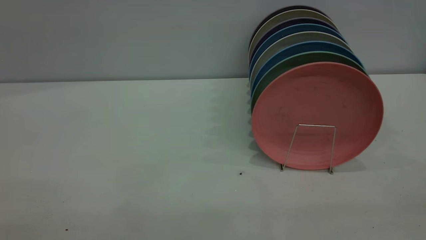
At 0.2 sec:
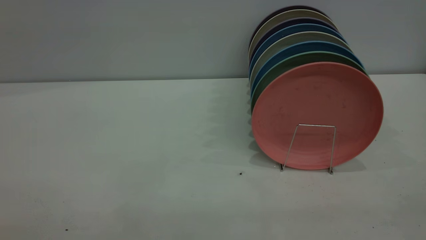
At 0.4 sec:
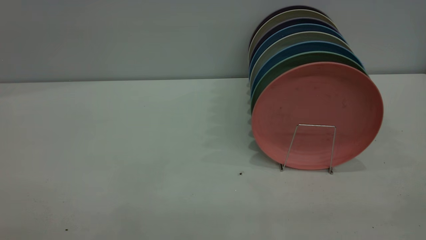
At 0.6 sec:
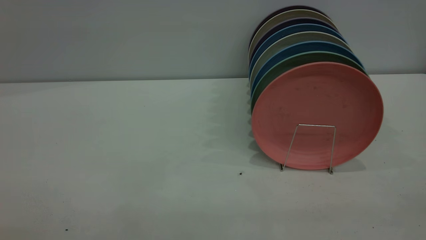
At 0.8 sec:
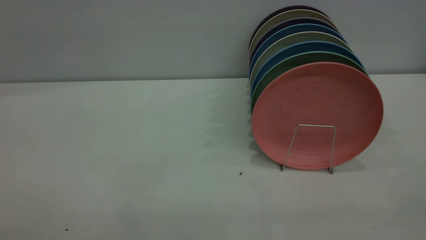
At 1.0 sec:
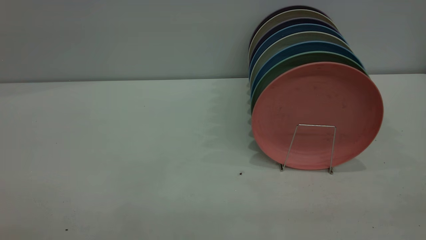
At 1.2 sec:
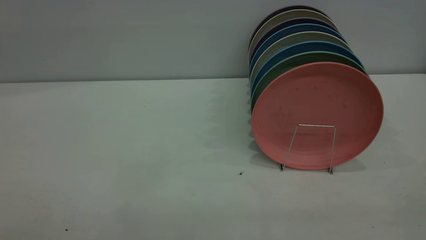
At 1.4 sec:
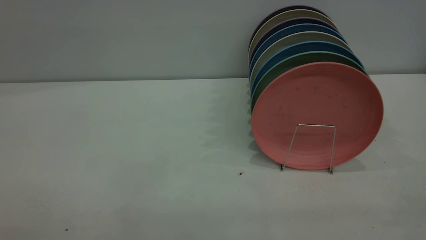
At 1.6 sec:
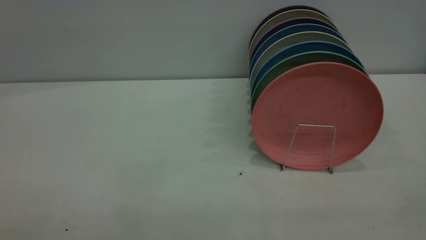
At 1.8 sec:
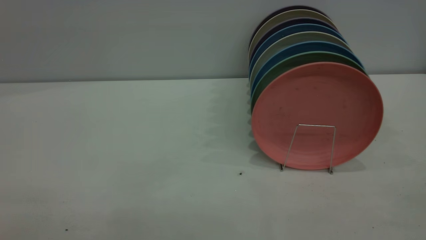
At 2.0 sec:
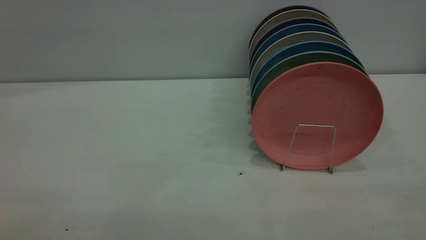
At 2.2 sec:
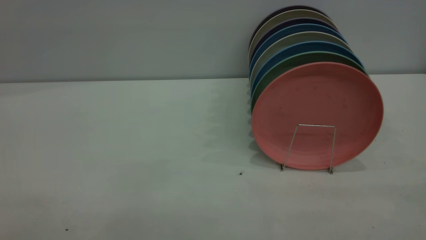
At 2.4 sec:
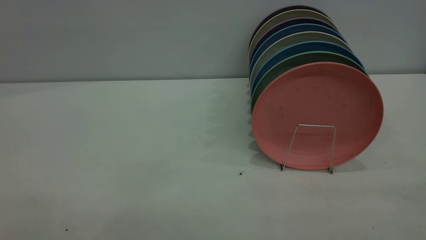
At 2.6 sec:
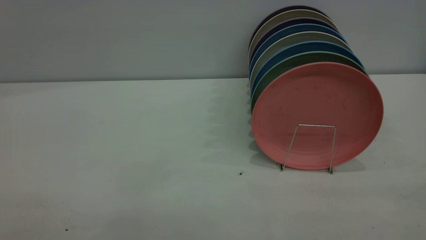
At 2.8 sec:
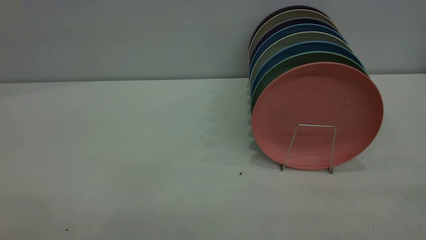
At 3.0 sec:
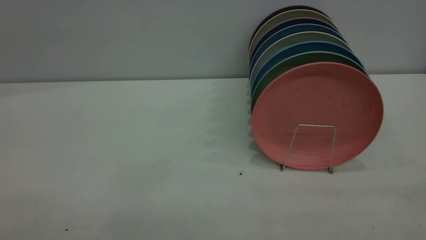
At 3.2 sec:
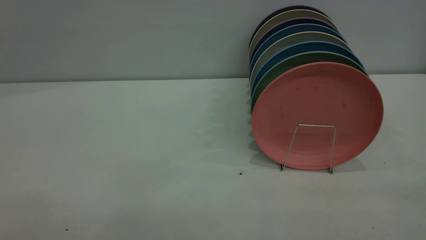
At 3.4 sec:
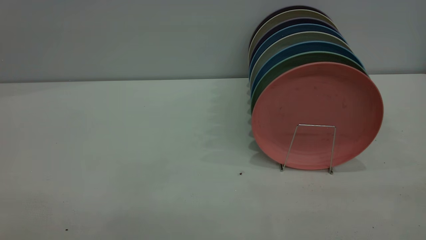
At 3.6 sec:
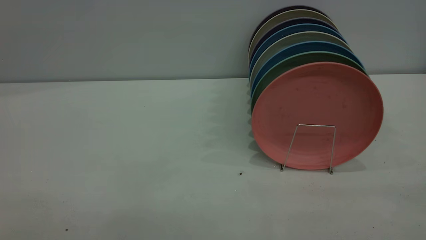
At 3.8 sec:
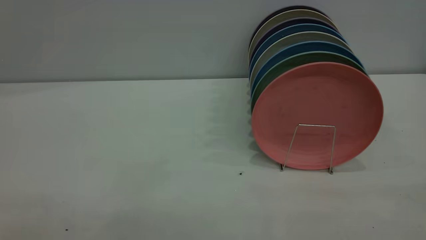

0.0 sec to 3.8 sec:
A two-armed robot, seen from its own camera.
Task of the whole recording: put the plate on the plate rack.
0.0 sec to 1.2 sec: Neither gripper changes place.
2.6 sec to 3.8 sec: Both grippers stay about where they are.
